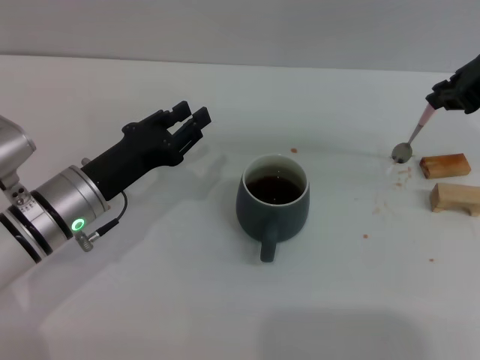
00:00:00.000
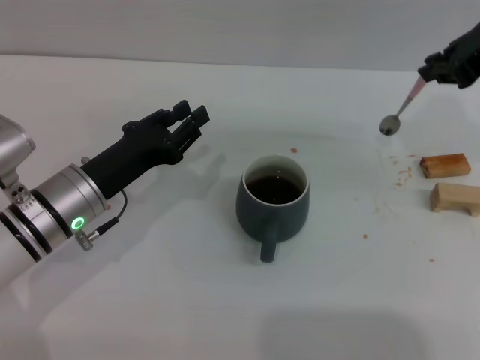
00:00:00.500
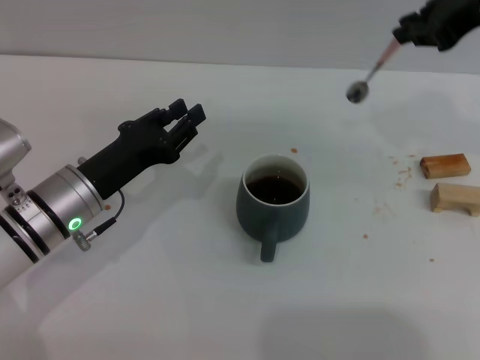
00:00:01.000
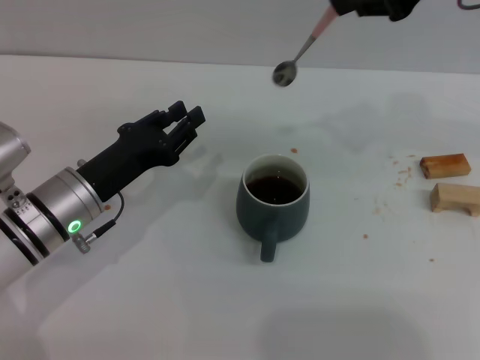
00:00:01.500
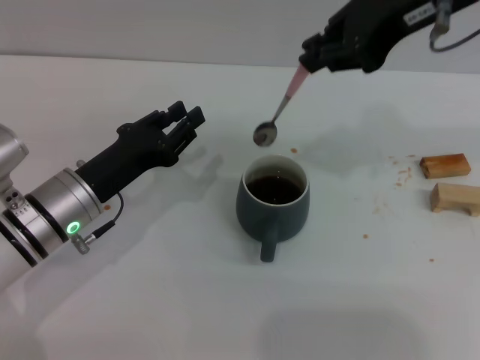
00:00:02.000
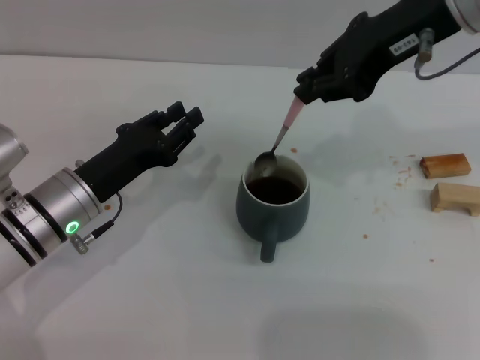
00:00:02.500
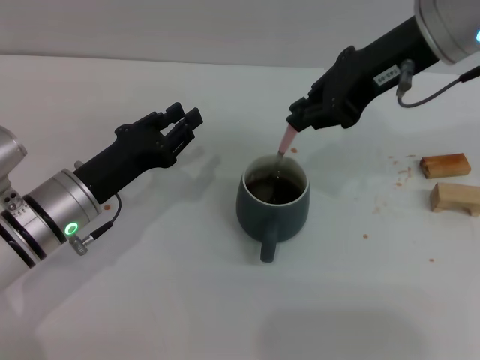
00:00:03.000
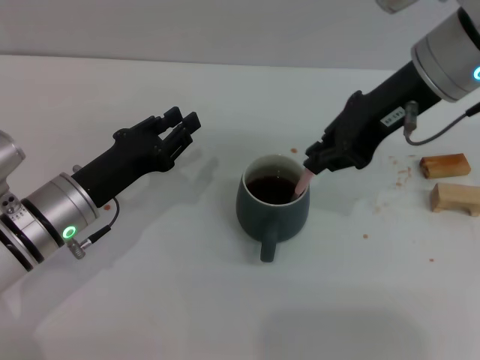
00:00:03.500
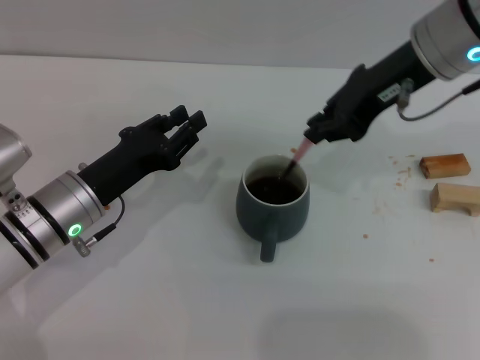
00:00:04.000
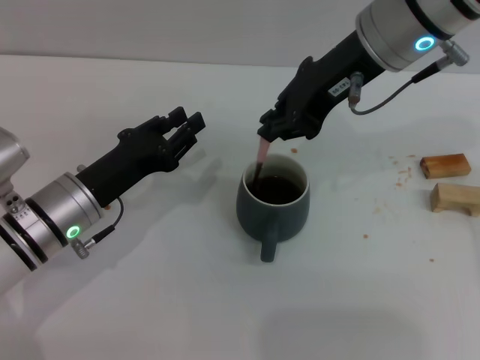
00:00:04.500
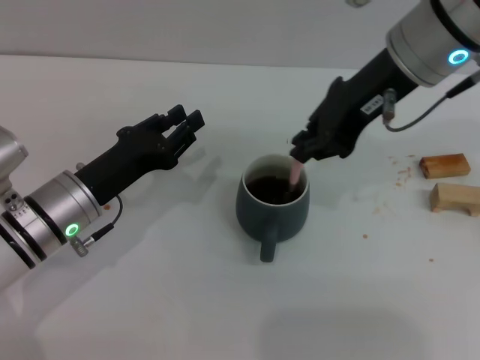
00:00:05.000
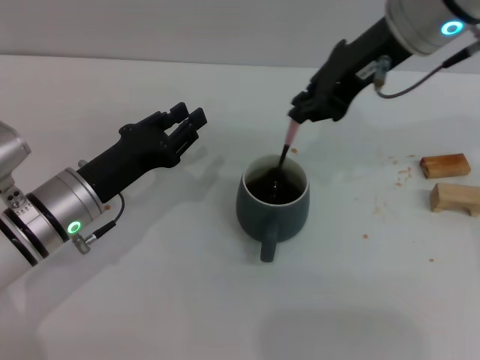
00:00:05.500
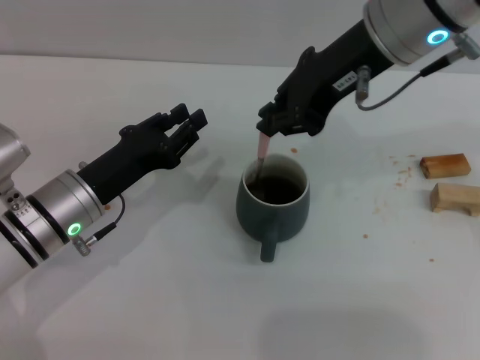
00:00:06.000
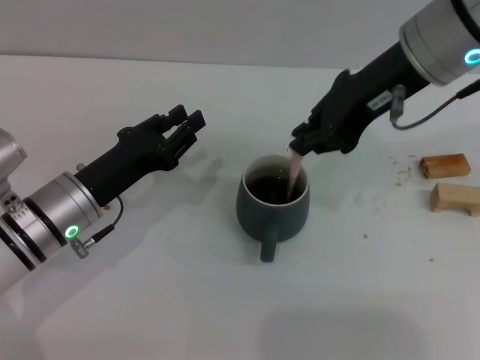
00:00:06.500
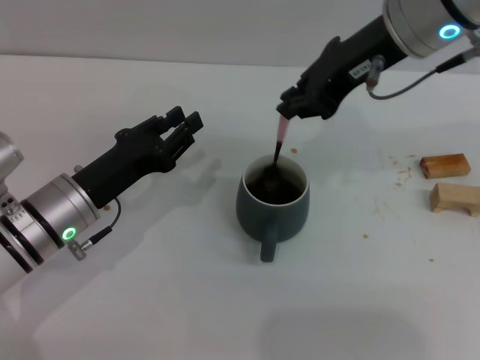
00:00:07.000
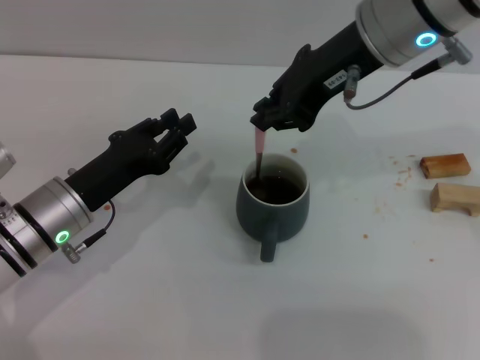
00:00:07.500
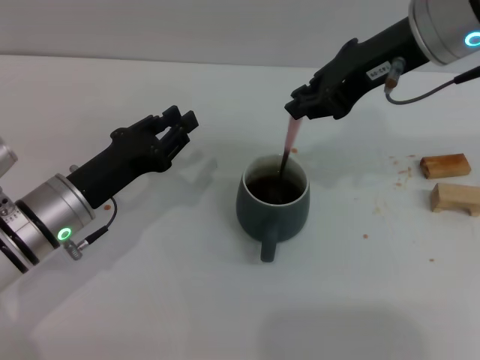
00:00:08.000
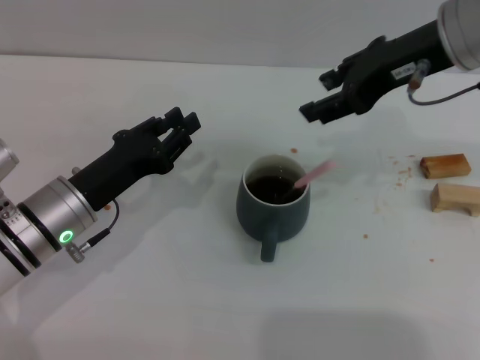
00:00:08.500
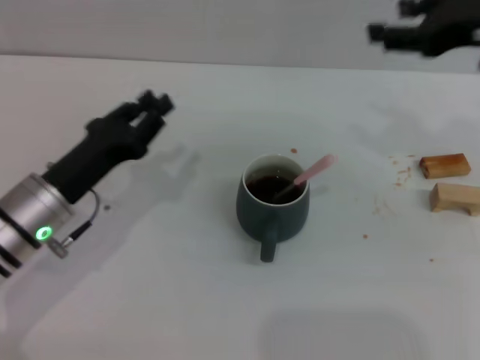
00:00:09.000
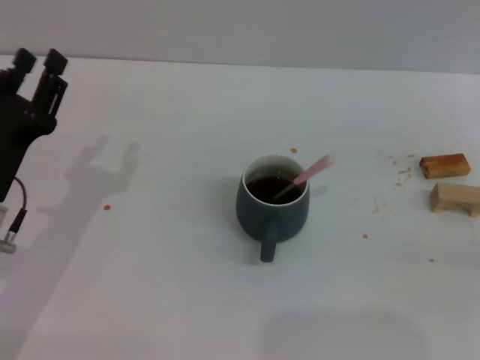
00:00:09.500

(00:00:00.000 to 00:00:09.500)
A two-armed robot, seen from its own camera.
Task of the whole recording: Move the grey cup to the center, lift the pink spoon, stir it three times in the cup, and put the spoon into the cup.
Step, 00:00:01.000 - 00:00:08.000: Stir the coffee in the cup with the right gripper.
00:00:00.000 - 00:00:02.000: The right gripper moves to the left and upward, roughly 10 cm.
00:00:02.000 - 00:00:04.000: The right gripper goes roughly 5 cm downward.
00:00:04.000 - 00:00:07.500: The grippers make only small movements.
00:00:07.500 - 00:00:09.500: The right gripper moves to the right, downward and backward, some 30 cm, and opens up, while the left gripper shifts by some 5 cm.

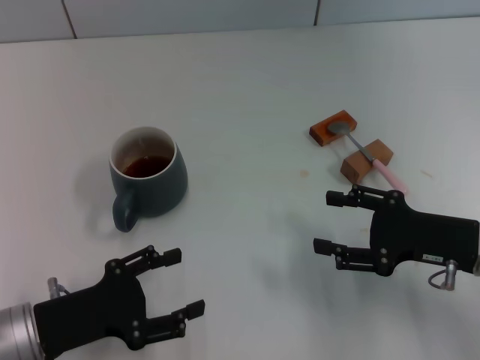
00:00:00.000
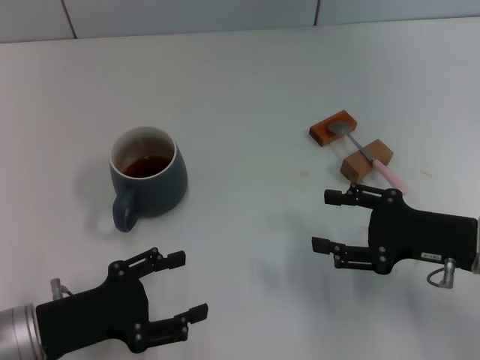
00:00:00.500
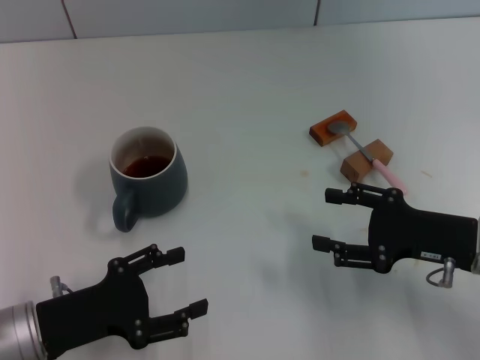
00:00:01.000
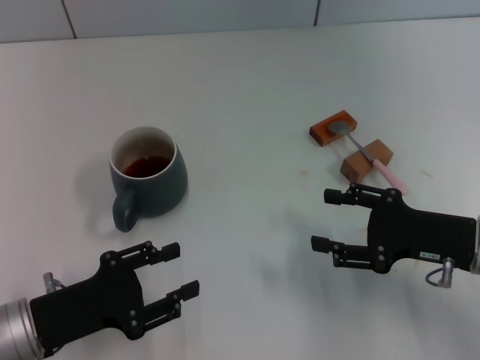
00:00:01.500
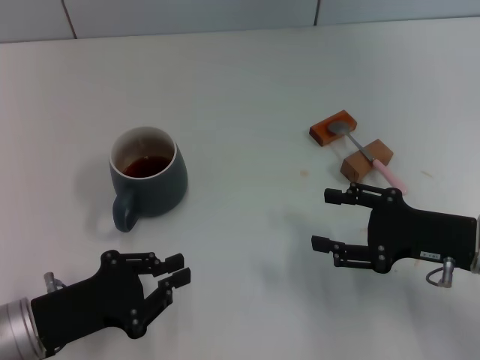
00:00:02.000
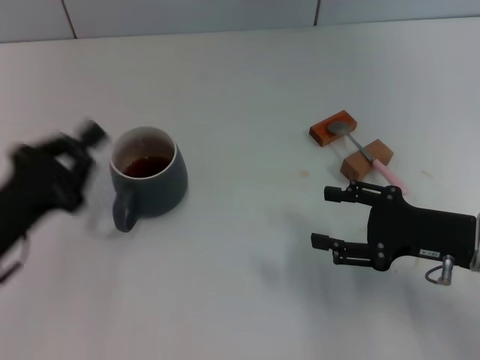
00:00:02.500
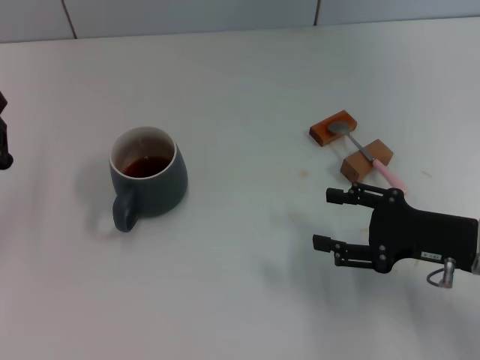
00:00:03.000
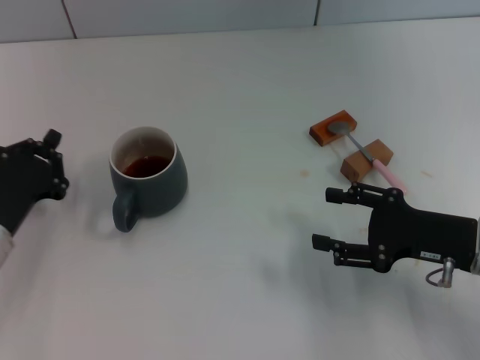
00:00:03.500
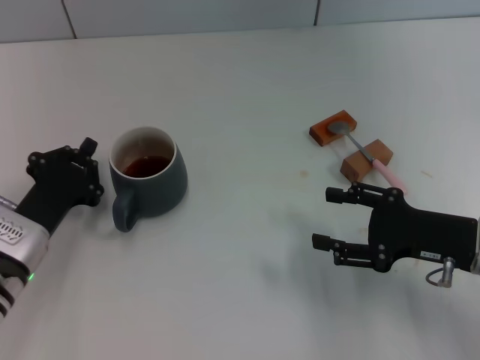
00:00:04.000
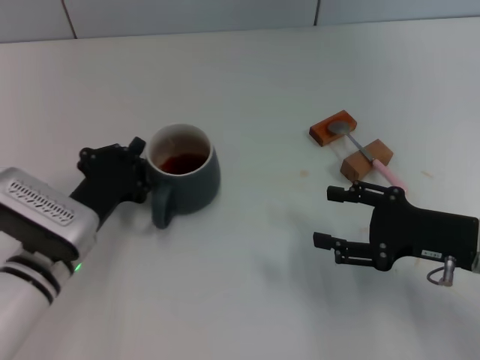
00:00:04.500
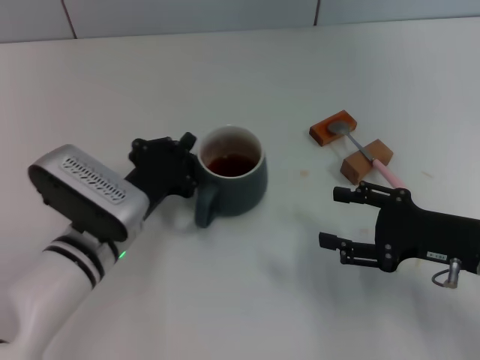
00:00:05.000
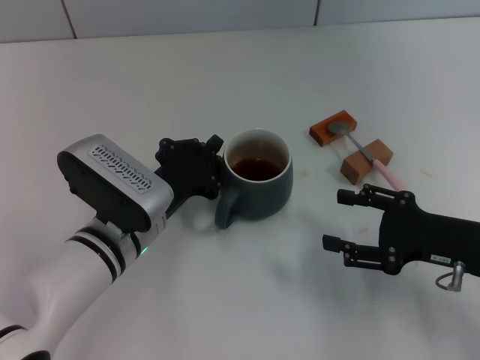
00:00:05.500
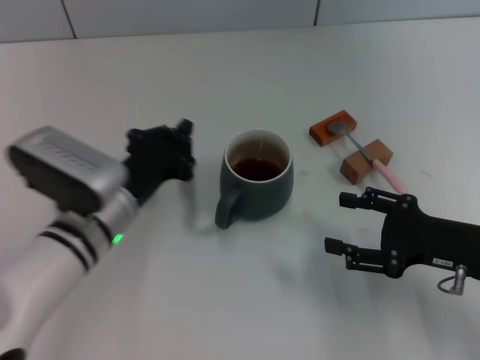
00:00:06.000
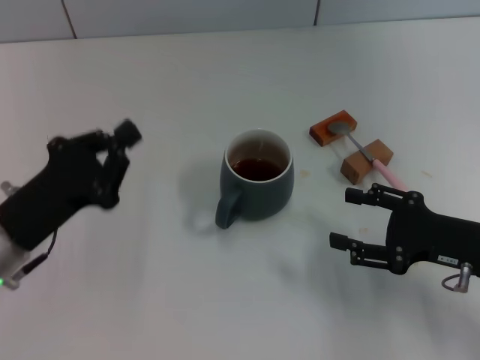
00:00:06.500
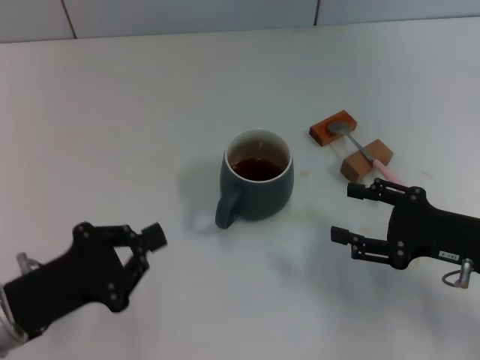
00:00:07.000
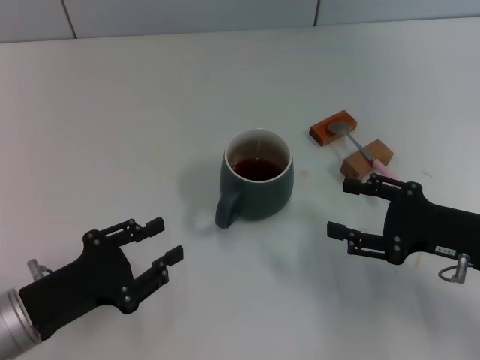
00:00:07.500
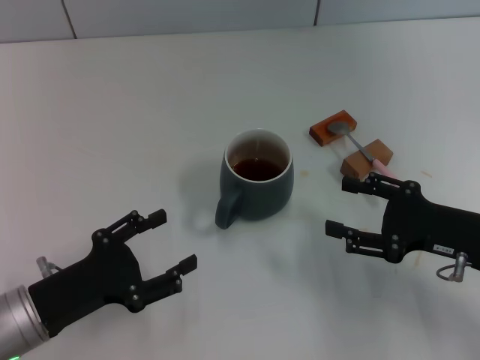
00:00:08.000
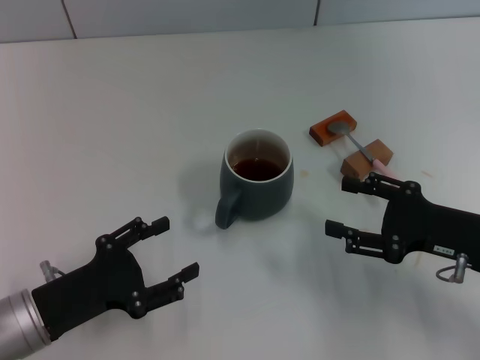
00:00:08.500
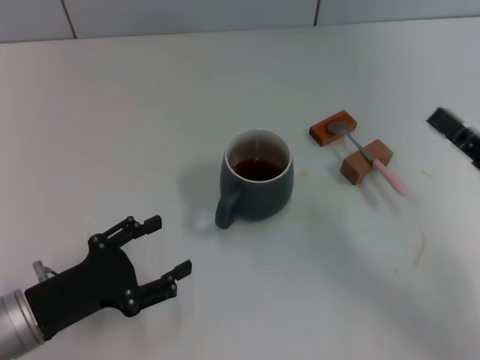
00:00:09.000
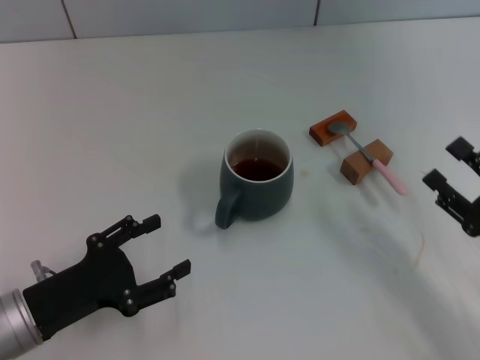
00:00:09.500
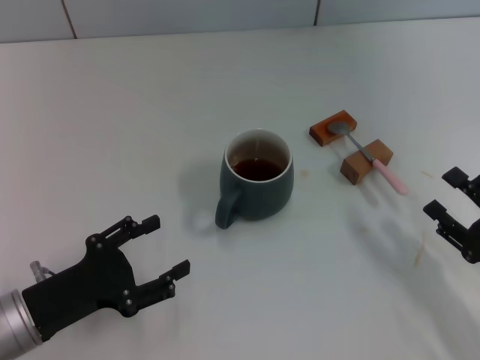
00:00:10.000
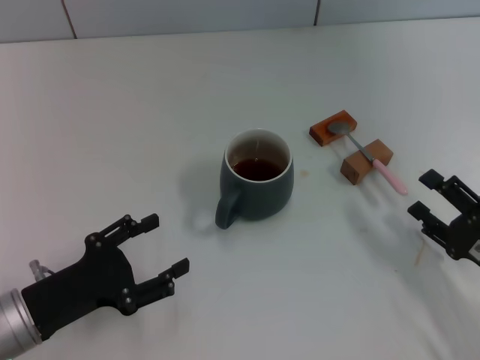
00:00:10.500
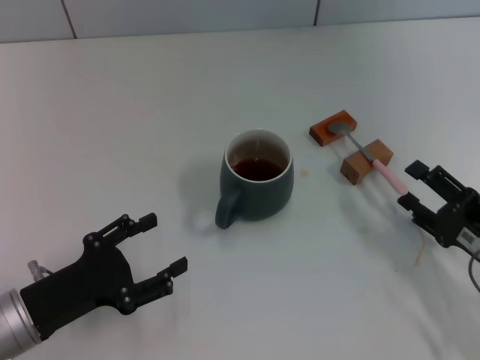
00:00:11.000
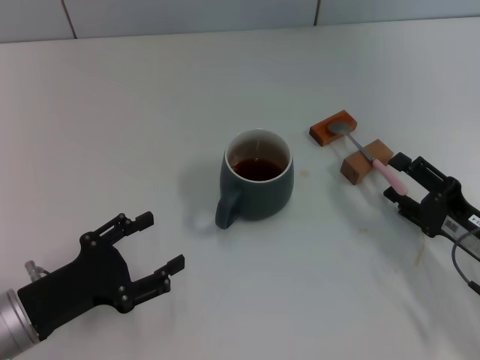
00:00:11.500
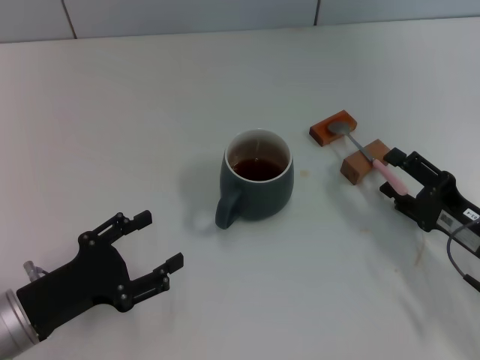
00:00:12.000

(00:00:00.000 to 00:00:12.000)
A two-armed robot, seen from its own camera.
Task of the whole recording: Move the grey cup to the center, lift the pink spoon, stir it three times in the cup, and put the spoon into the cup.
Step, 00:00:00.000 - 00:00:05.500: Move the cup with coffee to the center of view with the left gripper.
00:00:00.000 - 00:00:02.000: The left gripper closes up.
00:00:02.000 - 00:00:04.000: The left gripper travels forward by some 5 cm, and closes up.
00:00:04.000 - 00:00:06.000: The left gripper goes some 10 cm to the right.
00:00:06.000 - 00:00:08.000: The left gripper heads to the left and backward, covering roughly 15 cm, and opens up.
00:00:08.000 - 00:00:10.000: The right gripper shifts roughly 10 cm backward.
00:00:10.000 - 00:00:12.000: The right gripper shifts about 5 cm forward.

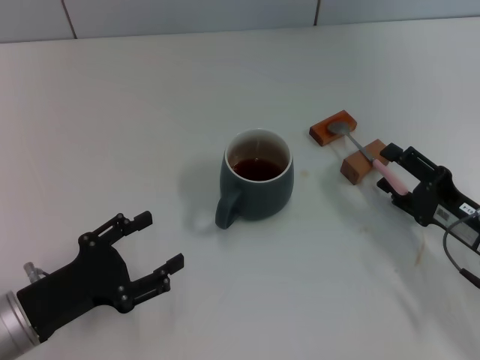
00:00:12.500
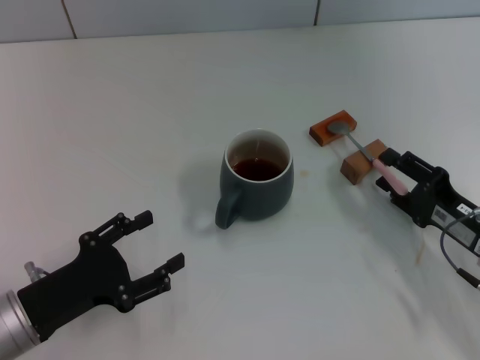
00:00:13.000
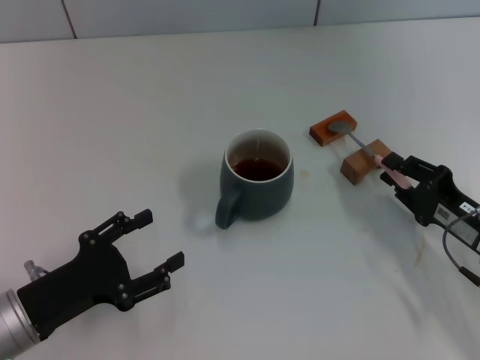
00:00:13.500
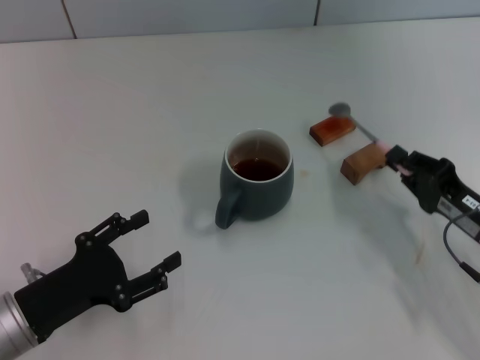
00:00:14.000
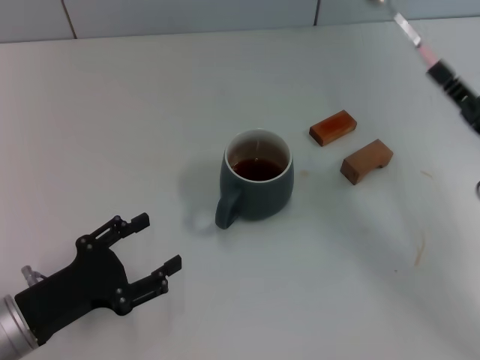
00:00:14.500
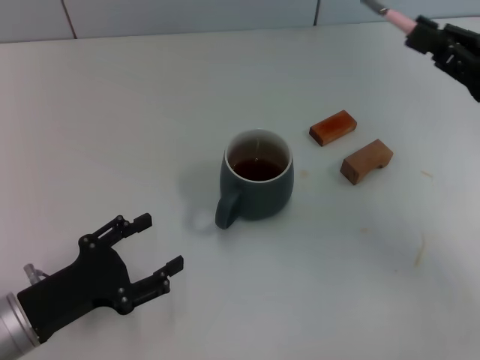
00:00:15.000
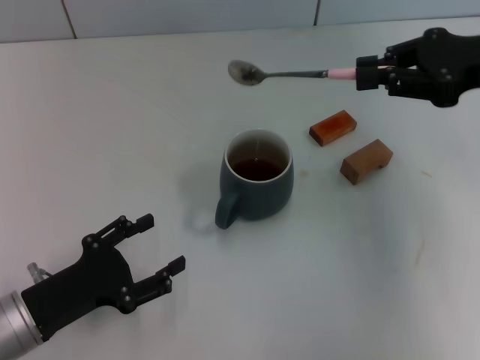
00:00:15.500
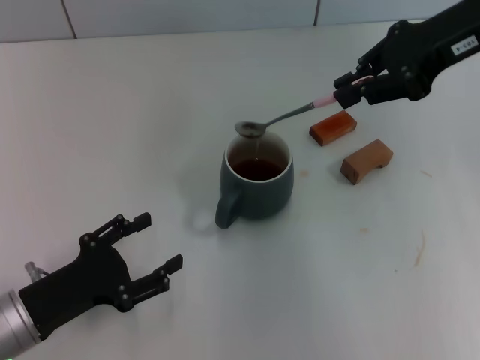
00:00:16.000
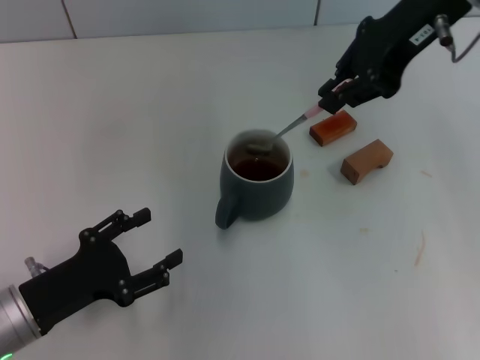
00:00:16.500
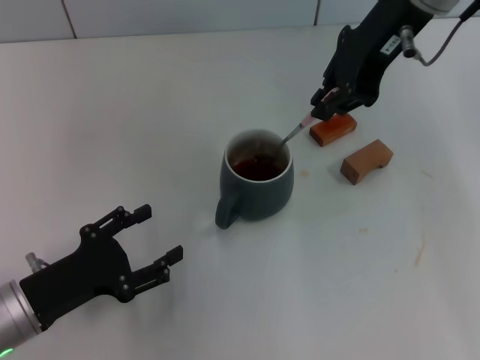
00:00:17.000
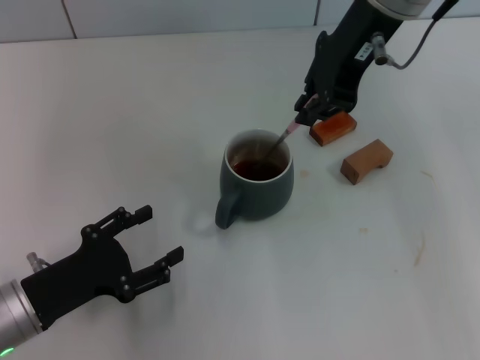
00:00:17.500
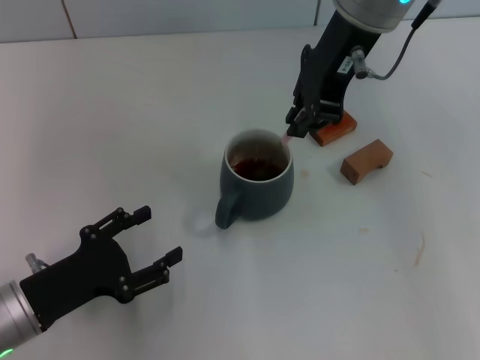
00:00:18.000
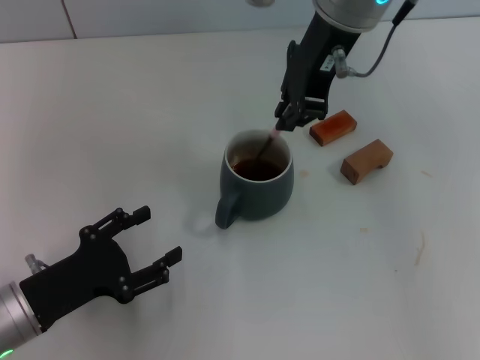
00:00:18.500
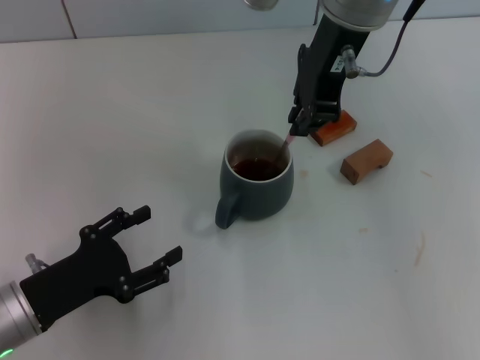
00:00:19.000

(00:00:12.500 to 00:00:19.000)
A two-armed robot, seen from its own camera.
Task of the whole recording: Move the grey cup to the center, lift the pink spoon, stir it three times in the cup, and put the spoon into the cup.
00:00:12.500 - 00:00:14.500: The right gripper travels upward by approximately 5 cm, and closes up.
00:00:14.500 - 00:00:17.000: The right gripper travels upward, forward and to the left by approximately 30 cm.
00:00:17.000 - 00:00:19.000: The right gripper goes approximately 5 cm to the left.
